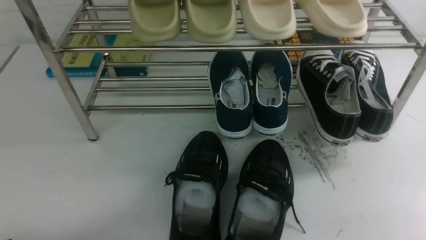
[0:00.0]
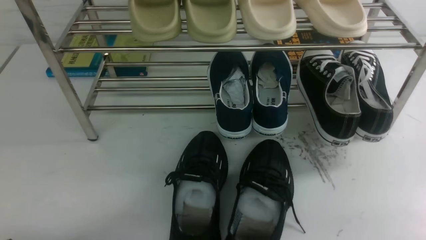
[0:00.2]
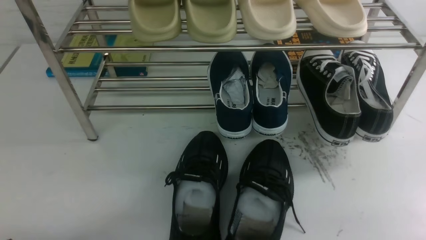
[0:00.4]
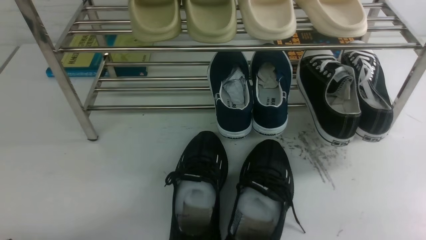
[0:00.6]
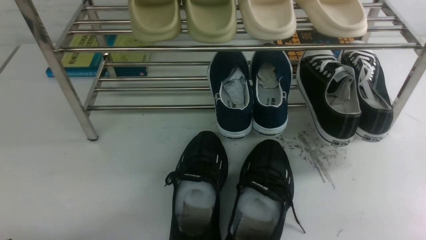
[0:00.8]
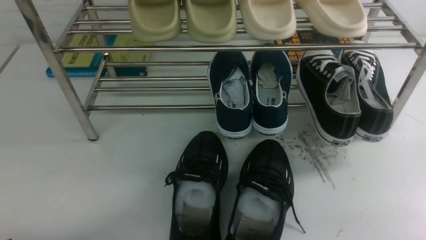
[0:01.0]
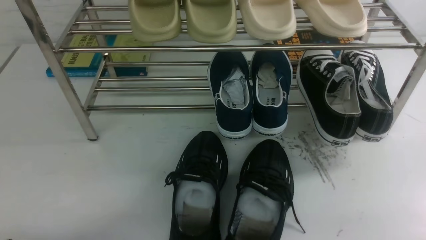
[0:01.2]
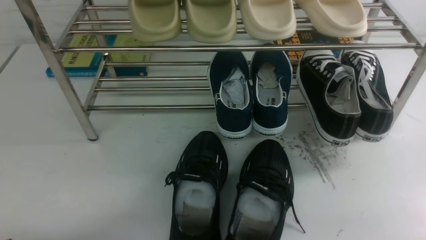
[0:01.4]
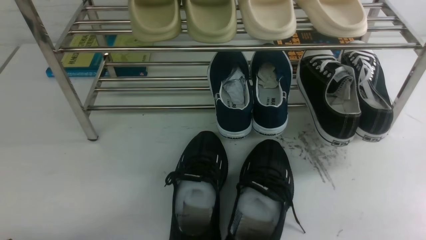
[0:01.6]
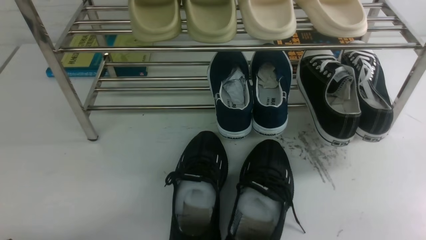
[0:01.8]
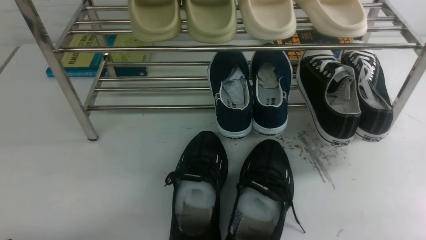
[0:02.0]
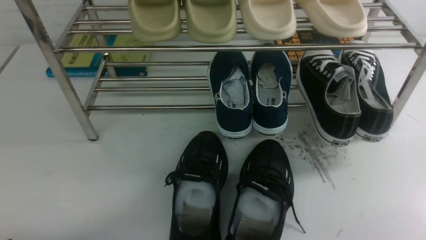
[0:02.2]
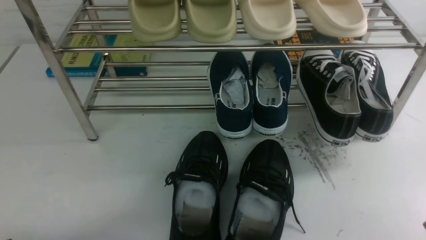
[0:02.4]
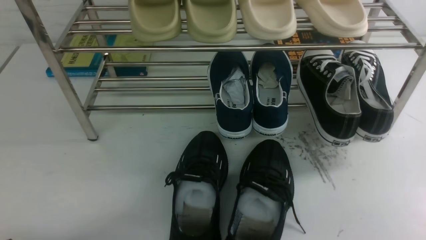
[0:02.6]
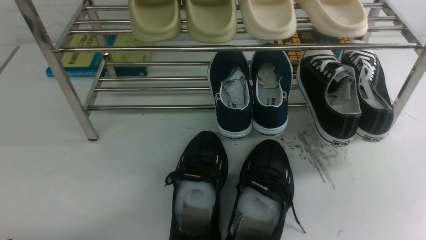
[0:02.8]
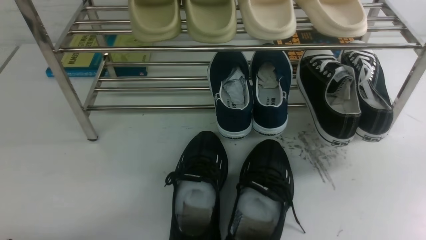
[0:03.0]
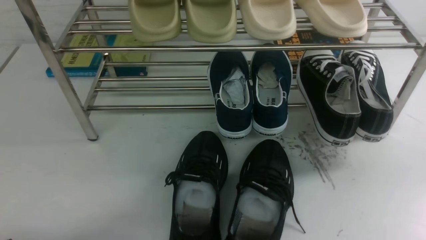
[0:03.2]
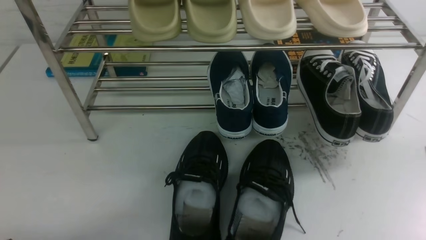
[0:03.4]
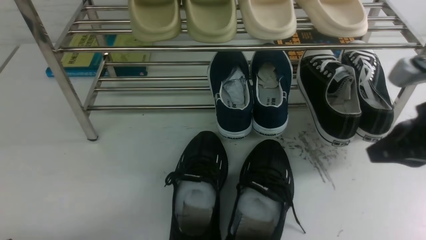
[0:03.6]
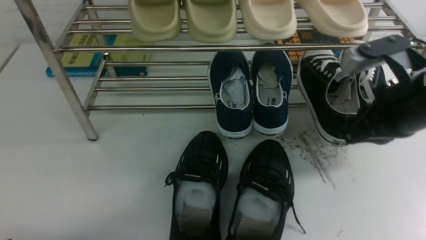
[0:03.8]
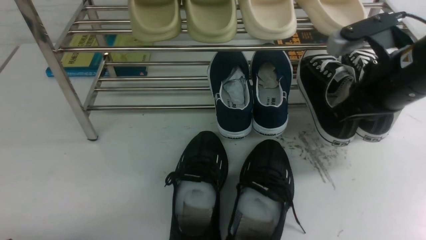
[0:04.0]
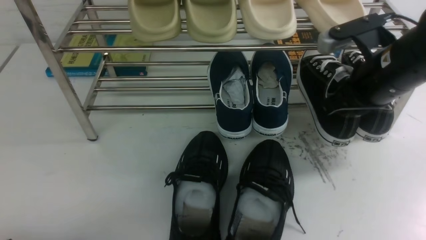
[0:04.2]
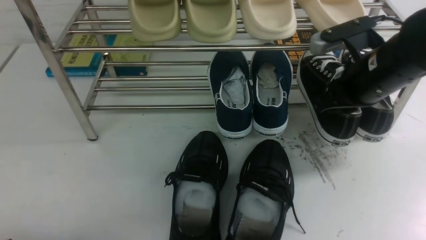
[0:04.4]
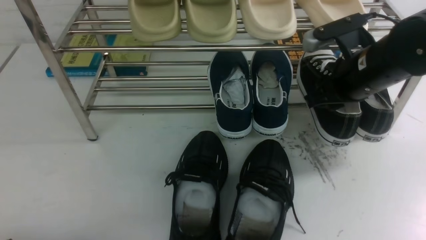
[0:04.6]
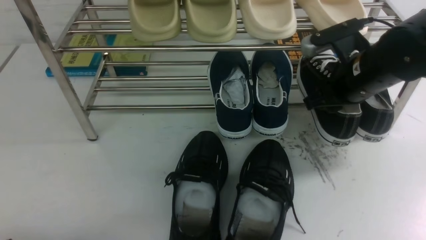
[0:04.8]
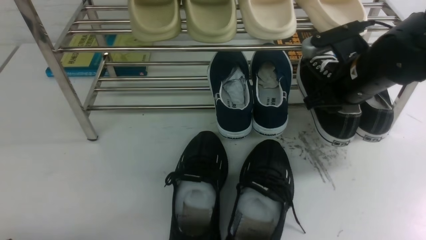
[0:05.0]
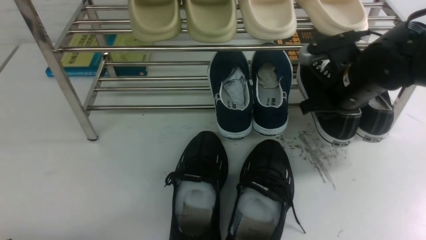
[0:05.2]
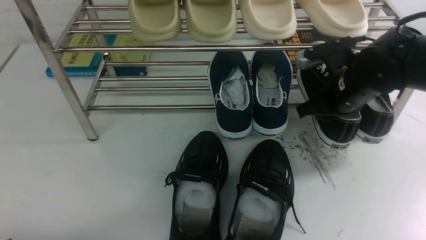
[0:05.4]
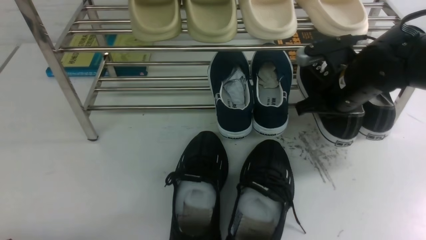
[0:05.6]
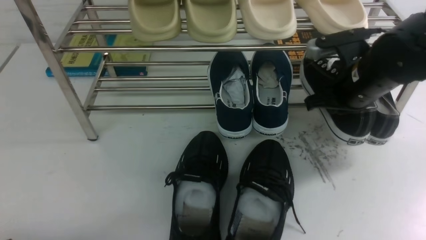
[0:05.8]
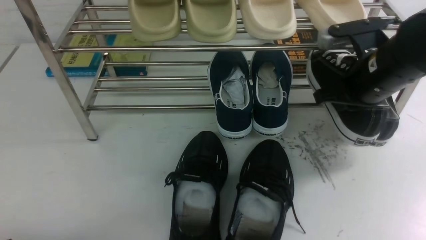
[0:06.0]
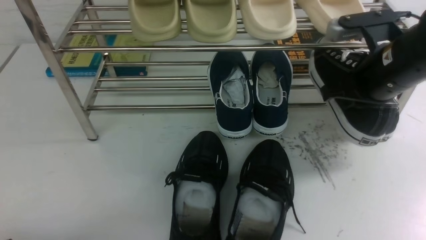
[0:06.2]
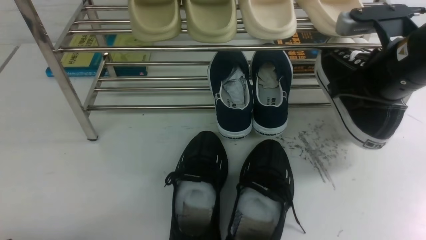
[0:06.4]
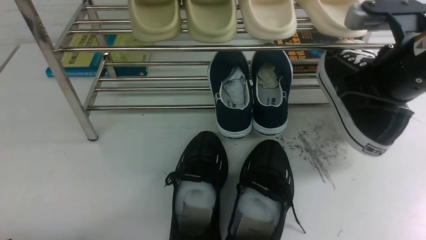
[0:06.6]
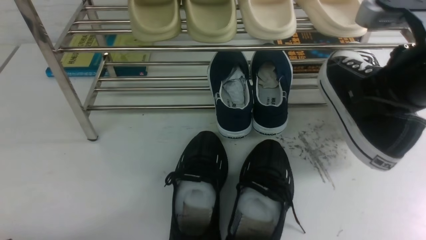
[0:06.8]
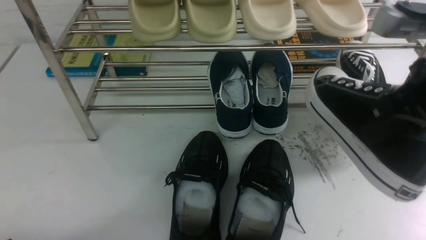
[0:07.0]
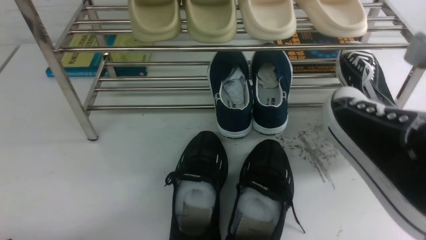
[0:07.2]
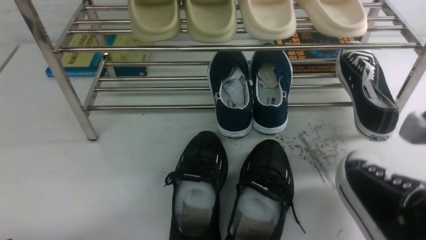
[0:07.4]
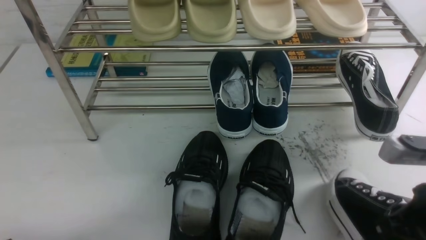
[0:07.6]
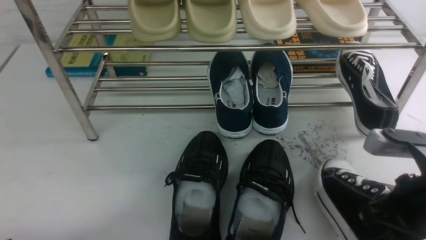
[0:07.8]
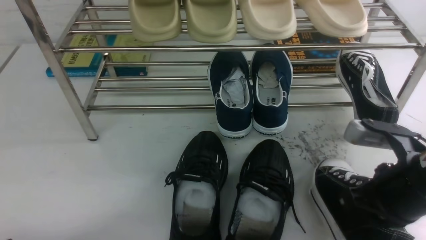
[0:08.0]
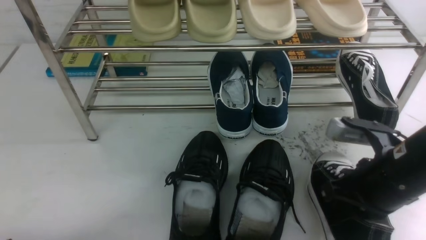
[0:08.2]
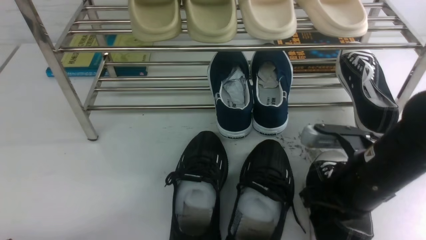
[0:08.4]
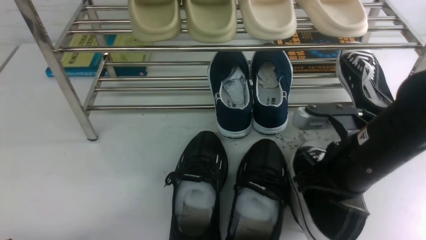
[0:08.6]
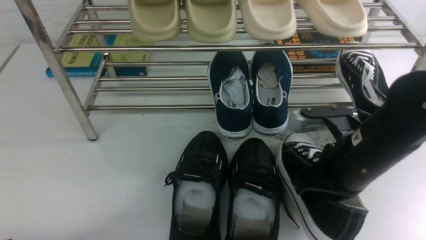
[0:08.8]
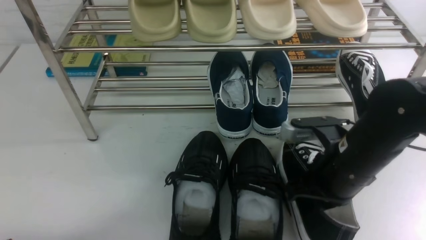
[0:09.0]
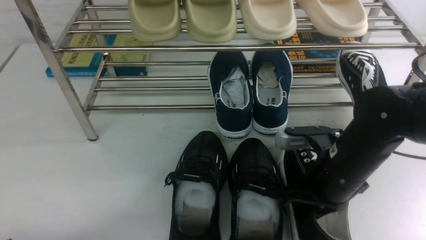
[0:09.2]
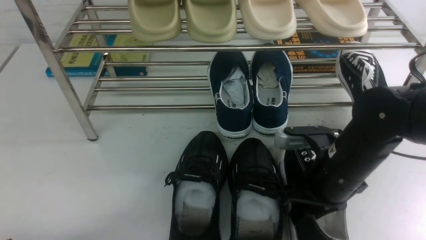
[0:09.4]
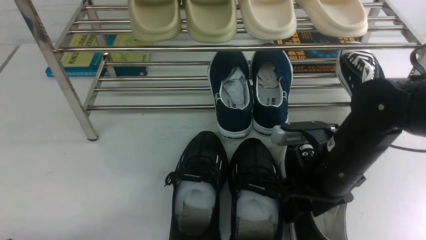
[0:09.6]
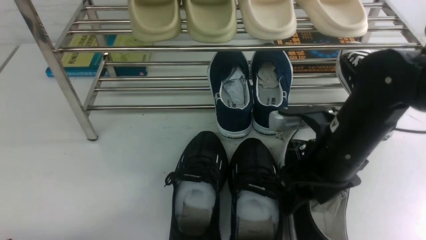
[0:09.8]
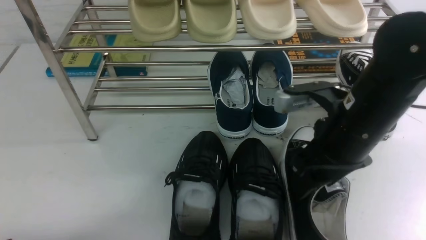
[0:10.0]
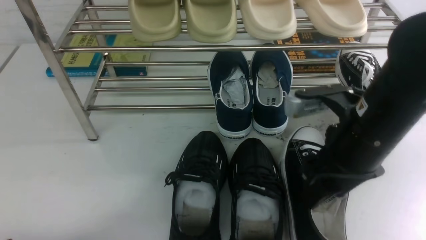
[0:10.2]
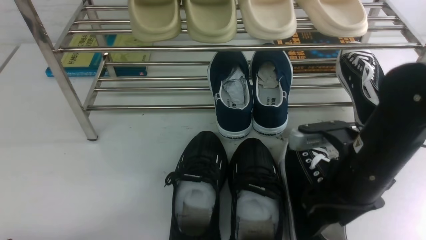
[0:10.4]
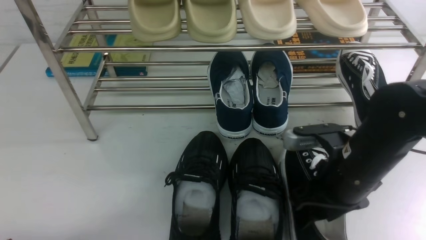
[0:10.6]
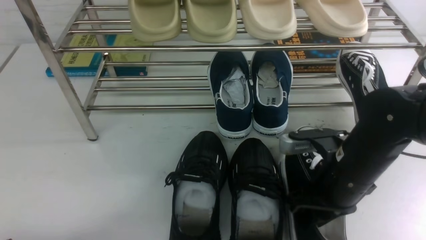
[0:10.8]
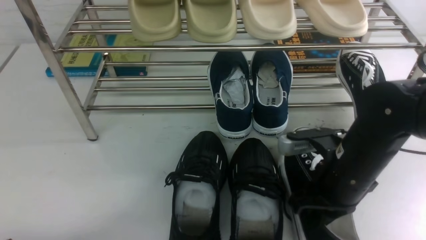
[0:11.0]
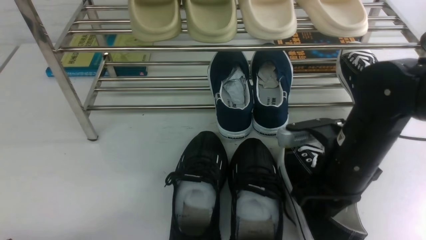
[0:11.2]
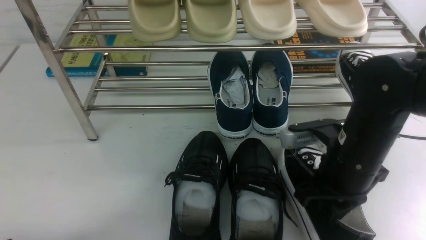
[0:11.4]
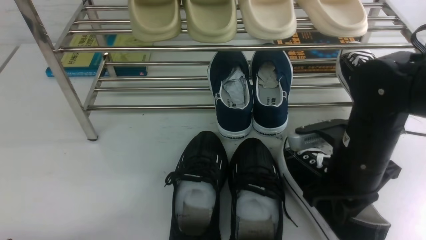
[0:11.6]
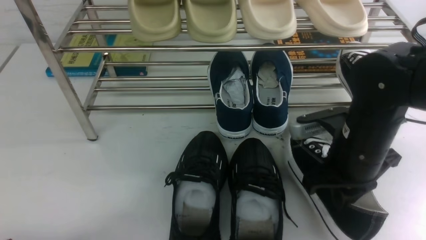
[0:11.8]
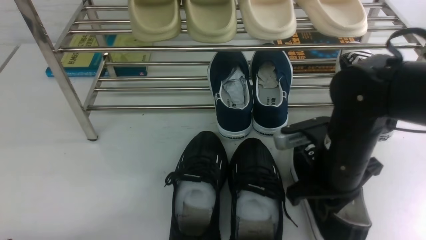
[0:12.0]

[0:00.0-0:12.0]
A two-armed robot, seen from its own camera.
Step, 0:00.0 to 0:06.0: use the right arm to clamp a shoe on the right side of the shoe rack.
0:03.0 to 0:04.4: The right gripper heads forward and to the left, covering roughly 25 cm, and opens its fingers.
0:04.4 to 0:06.0: The right gripper closes.
0:06.0 to 0:07.6: The right gripper is displaced backward by some 15 cm.
0:07.6 to 0:09.0: The right gripper moves forward, to the left and downward, about 15 cm.
0:09.0 to 0:10.4: The right gripper opens its fingers.
0:10.4 to 0:12.0: The right gripper closes its fingers.

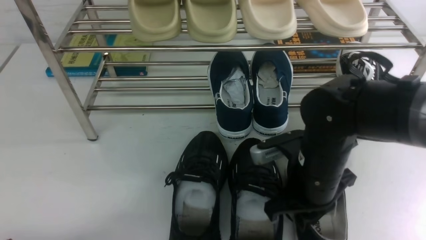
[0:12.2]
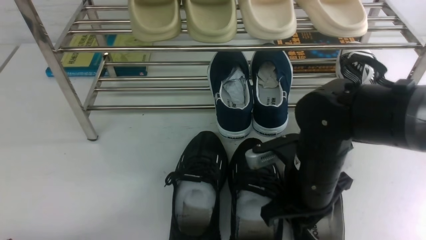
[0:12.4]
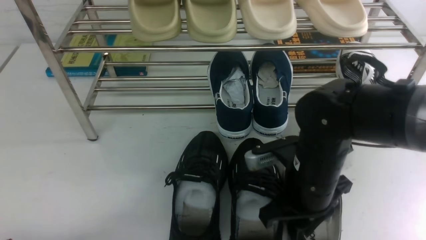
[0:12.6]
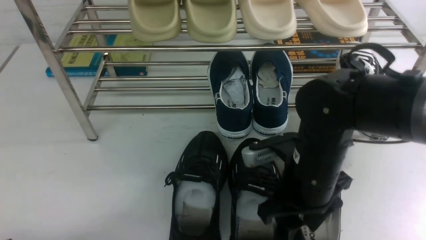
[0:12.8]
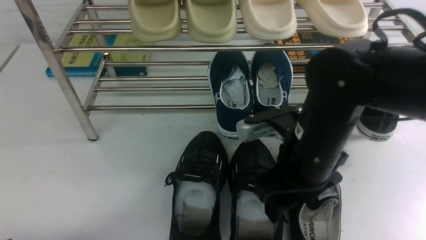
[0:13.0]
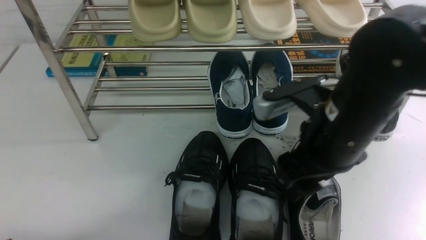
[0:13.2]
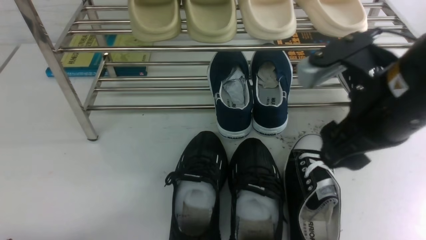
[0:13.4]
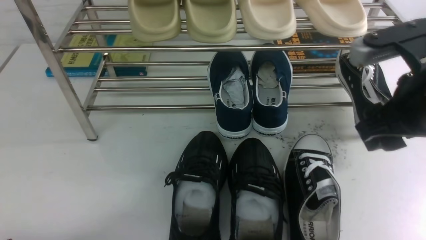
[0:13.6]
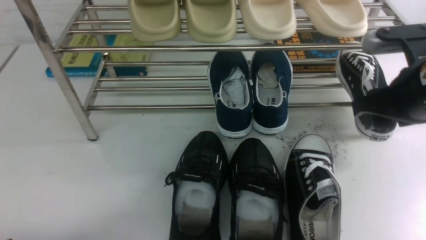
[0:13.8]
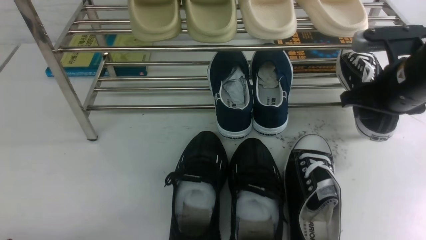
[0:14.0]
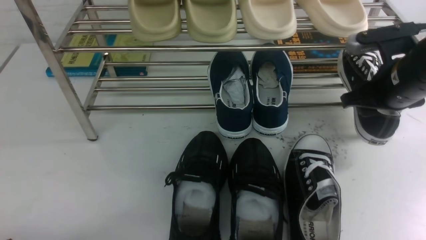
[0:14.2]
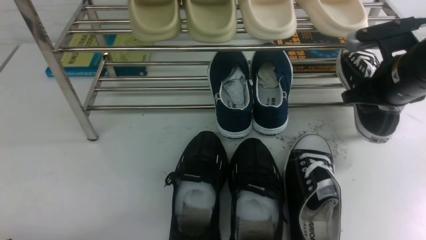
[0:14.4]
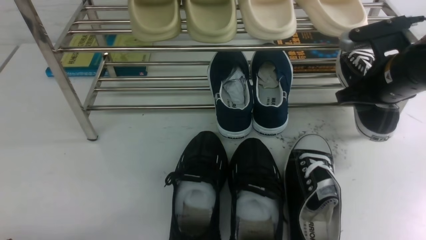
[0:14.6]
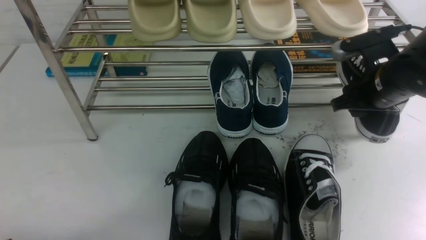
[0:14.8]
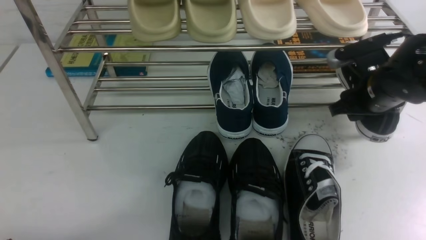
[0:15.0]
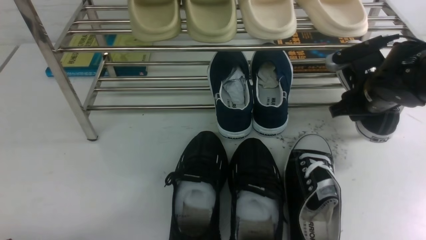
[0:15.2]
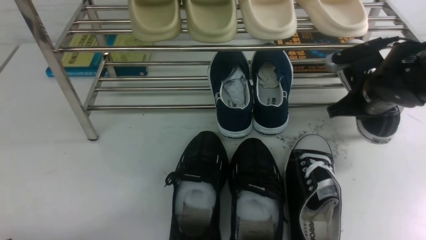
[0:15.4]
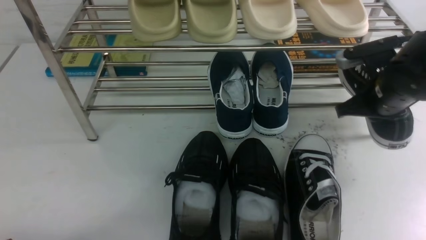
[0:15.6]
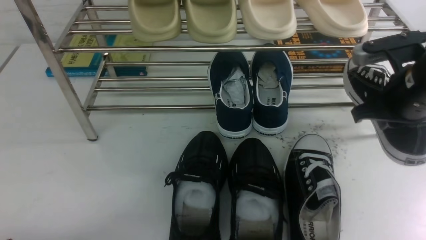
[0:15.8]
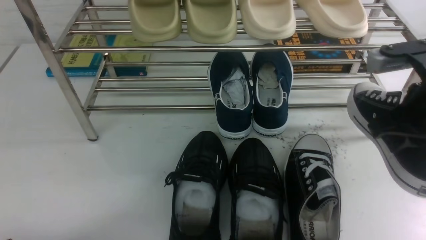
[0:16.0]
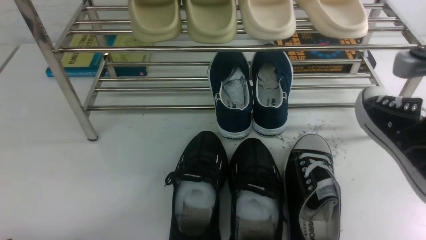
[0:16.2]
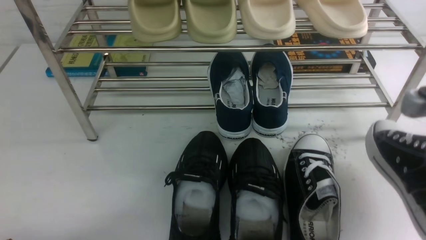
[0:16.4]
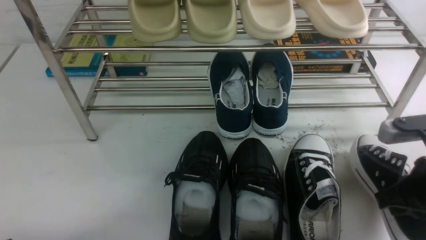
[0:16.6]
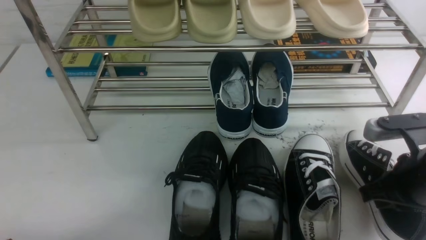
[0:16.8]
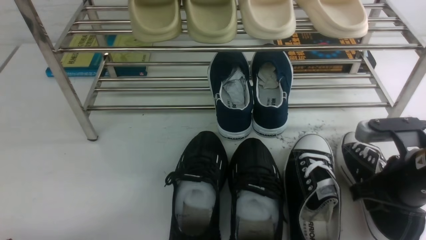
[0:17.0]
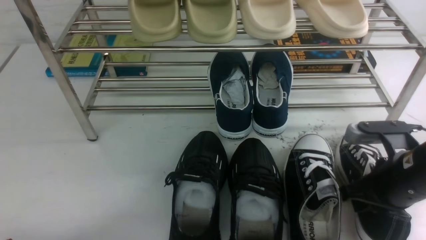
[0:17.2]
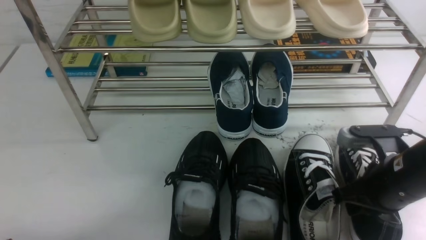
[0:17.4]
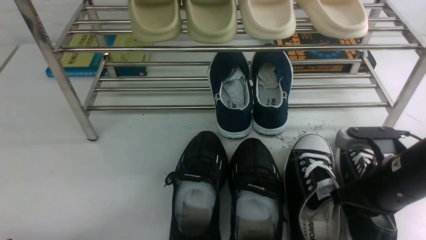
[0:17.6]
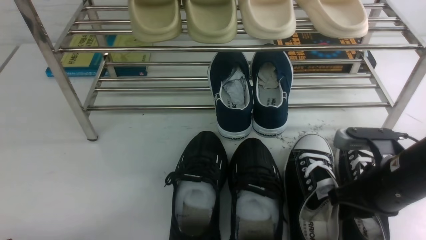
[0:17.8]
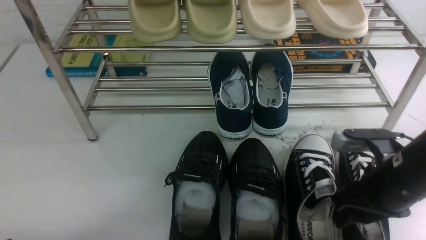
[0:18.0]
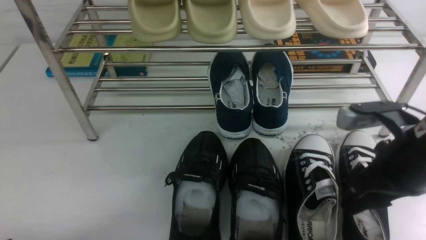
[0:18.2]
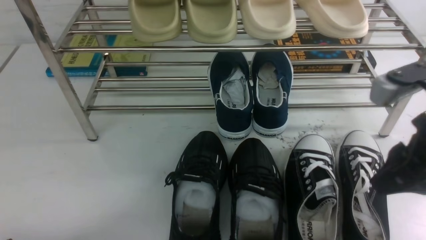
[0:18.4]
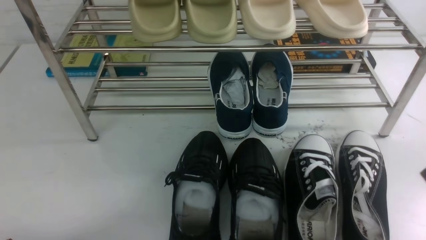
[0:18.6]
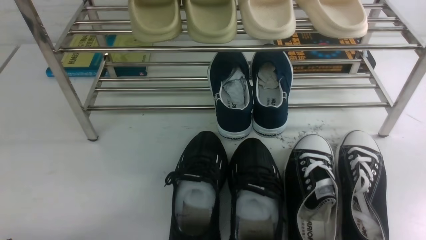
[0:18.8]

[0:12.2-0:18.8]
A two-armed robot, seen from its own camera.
Step, 0:13.2 to 0:15.8: use the right arm to clamp a shoe on the right side of the shoe rack.
Step, 0:16.0 to 0:18.4: use the right arm to take out the clamped shoe from the shoe rack and put it down.
0:12.2 to 0:13.8: The right gripper is displaced upward and to the right by roughly 15 cm, and opens its fingers.
0:13.8 to 0:15.4: The right gripper travels forward and downward by some 10 cm, and closes.
0:15.4 to 0:17.2: The right gripper is displaced backward by approximately 15 cm.
0:17.2 to 0:18.8: The right gripper heads upward and backward, covering roughly 20 cm, and opens, then closes again.
